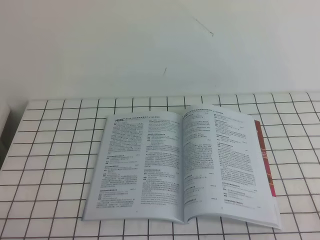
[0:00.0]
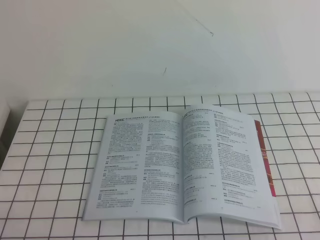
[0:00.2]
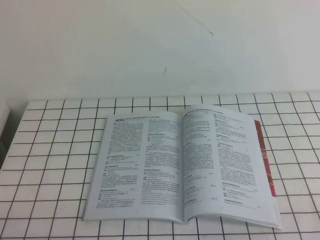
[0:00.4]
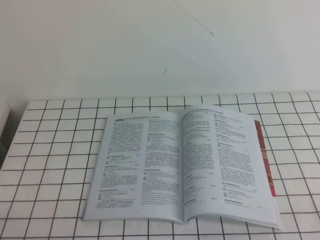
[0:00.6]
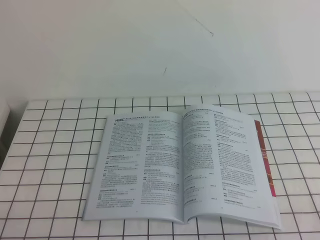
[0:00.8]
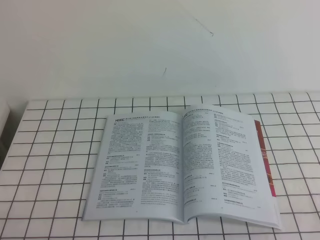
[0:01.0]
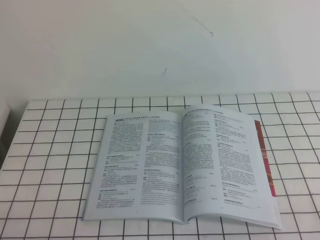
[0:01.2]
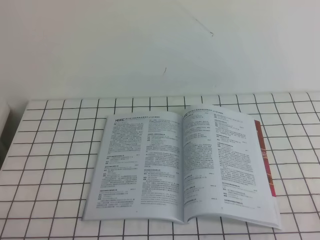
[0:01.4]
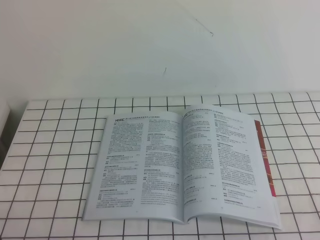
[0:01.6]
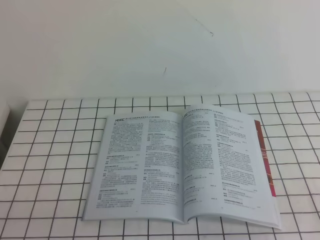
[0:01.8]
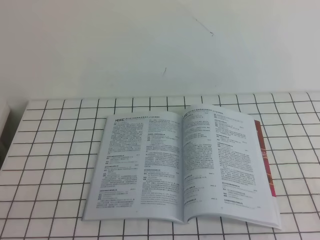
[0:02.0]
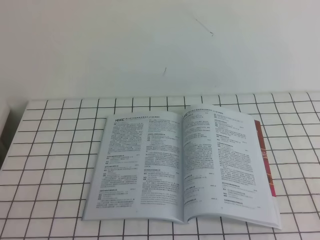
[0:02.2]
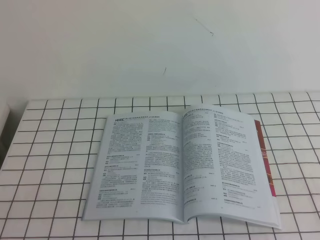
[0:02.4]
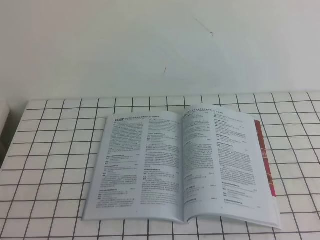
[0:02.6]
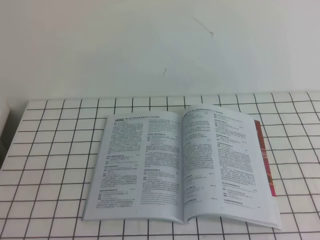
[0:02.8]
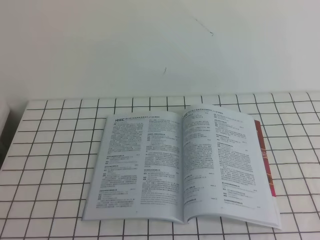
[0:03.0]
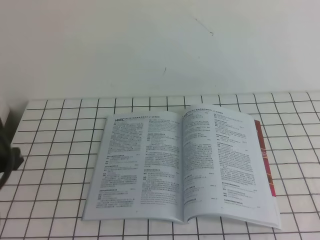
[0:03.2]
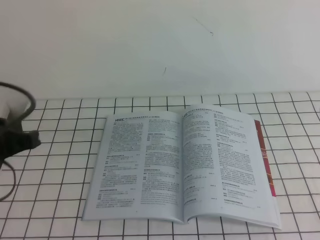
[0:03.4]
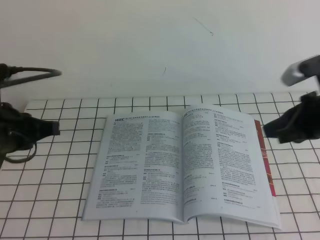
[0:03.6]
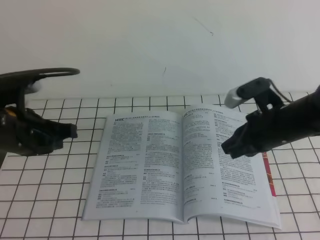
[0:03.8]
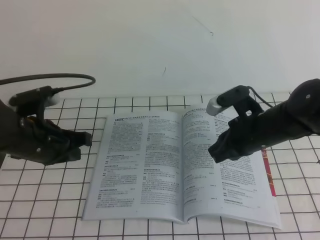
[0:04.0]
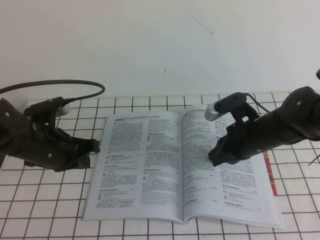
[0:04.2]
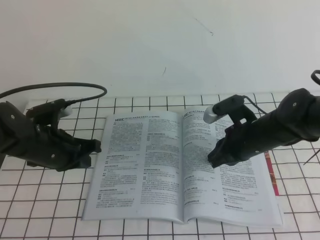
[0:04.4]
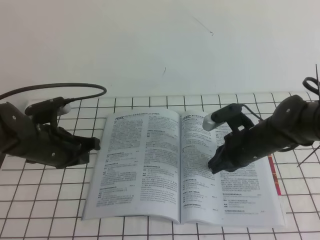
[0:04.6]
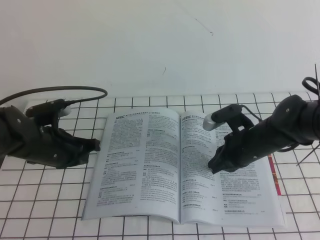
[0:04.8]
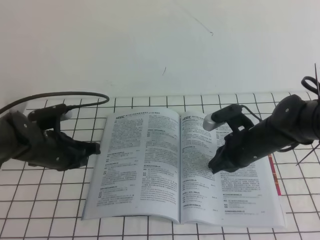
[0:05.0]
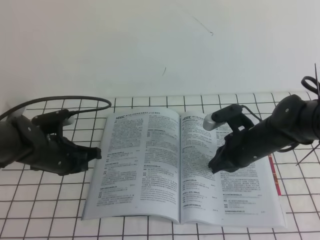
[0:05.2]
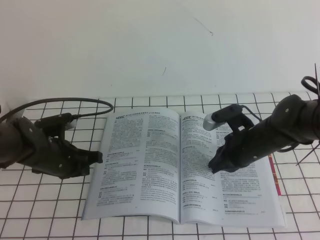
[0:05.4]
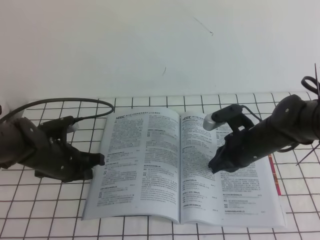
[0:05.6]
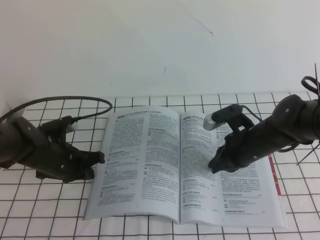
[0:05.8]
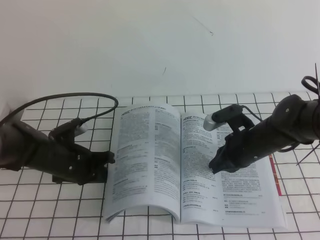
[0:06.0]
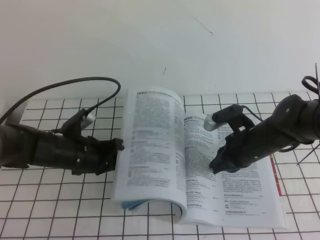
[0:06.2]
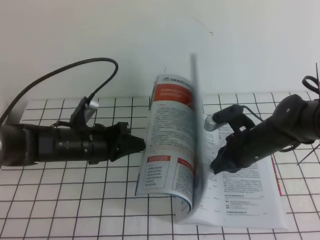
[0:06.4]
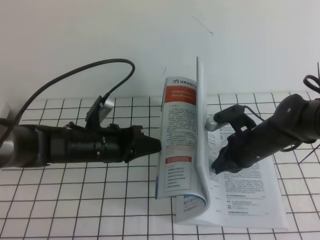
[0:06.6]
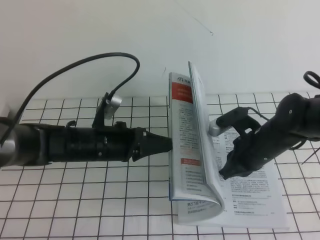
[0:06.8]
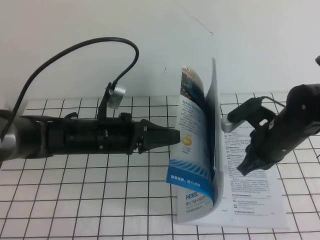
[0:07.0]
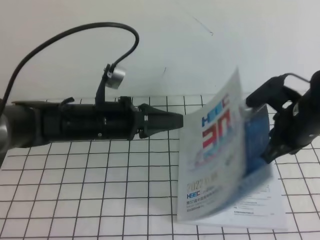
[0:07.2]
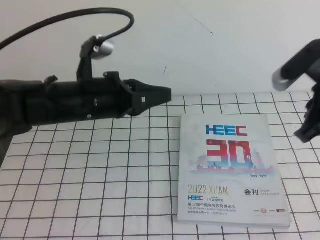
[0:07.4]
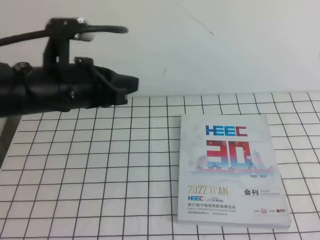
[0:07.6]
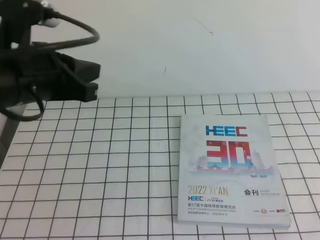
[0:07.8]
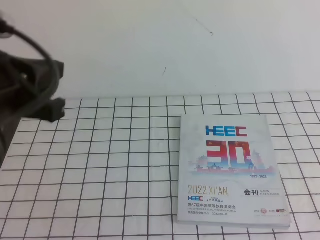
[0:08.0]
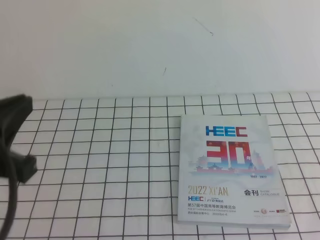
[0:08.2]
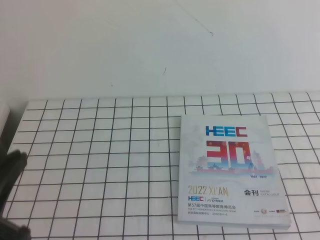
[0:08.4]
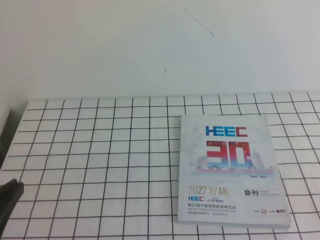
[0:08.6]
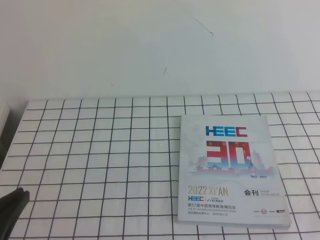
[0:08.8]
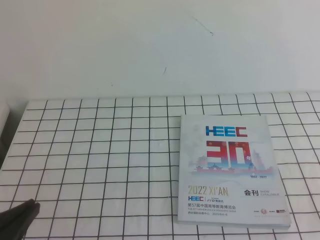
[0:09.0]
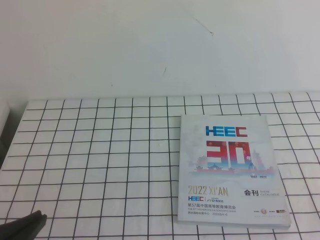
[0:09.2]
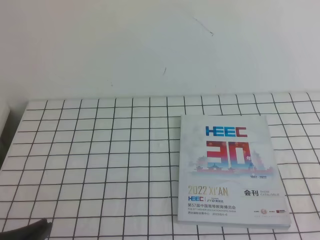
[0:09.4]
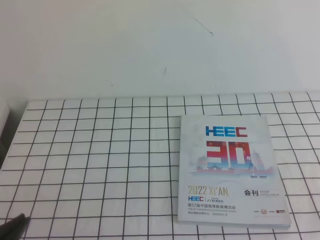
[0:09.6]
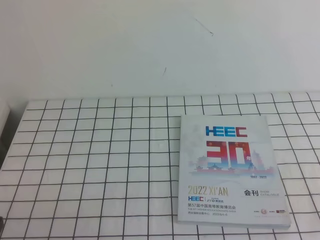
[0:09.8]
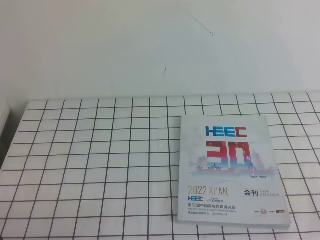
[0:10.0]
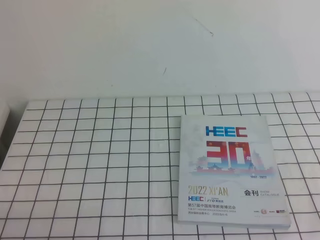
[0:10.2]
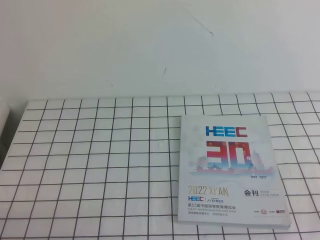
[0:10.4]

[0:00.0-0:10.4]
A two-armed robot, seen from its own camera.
Task of the whole recording: on the white tablecloth, hold the book with one hand and close it with the other.
0:00.0 to 0:01.4: Neither gripper changes place.
0:03.0 to 0:04.4: The left gripper heads forward and downward, covering approximately 25 cm; the right gripper moves forward, downward and to the left, about 40 cm.
0:04.4 to 0:06.0: The left gripper moves downward, about 5 cm.
0:06.0 to 0:07.4: The left gripper goes about 15 cm upward and to the right, while the right gripper goes approximately 15 cm upward.
0:07.4 to 0:09.0: The left gripper heads backward and to the left, covering roughly 25 cm; the right gripper travels backward by about 25 cm.
0:09.0 to 0:10.4: The left gripper travels downward by approximately 10 cm.

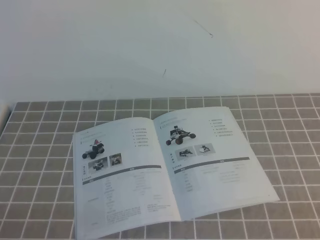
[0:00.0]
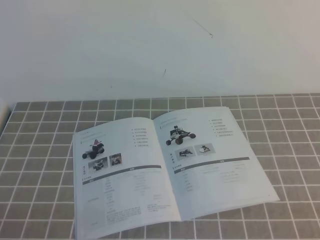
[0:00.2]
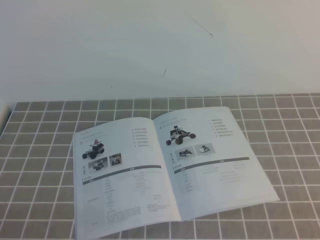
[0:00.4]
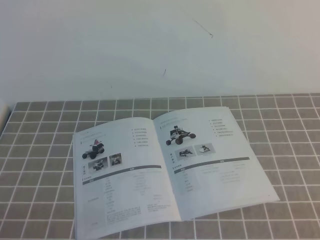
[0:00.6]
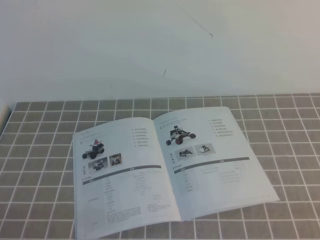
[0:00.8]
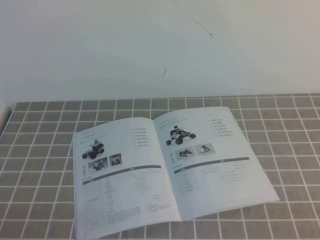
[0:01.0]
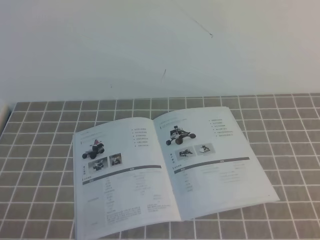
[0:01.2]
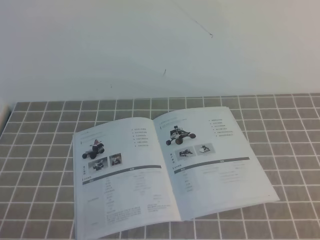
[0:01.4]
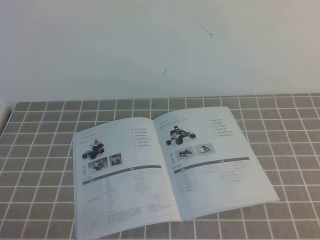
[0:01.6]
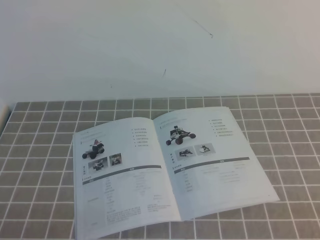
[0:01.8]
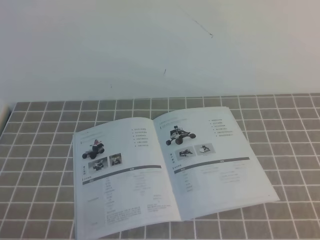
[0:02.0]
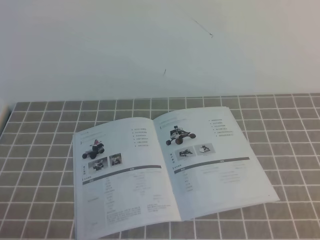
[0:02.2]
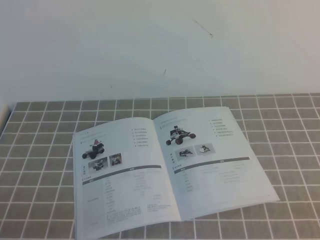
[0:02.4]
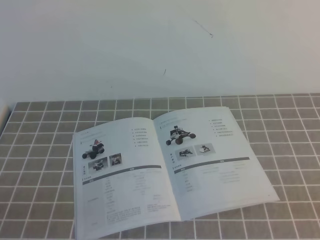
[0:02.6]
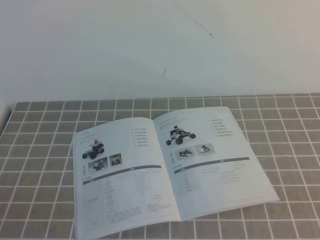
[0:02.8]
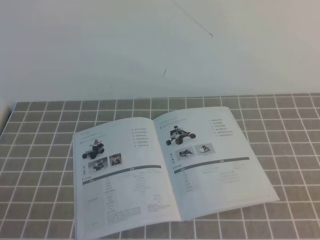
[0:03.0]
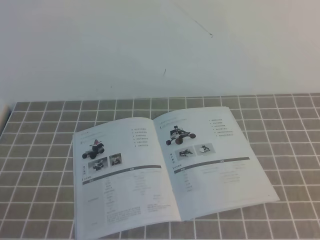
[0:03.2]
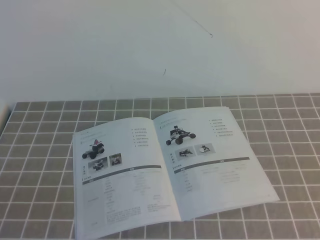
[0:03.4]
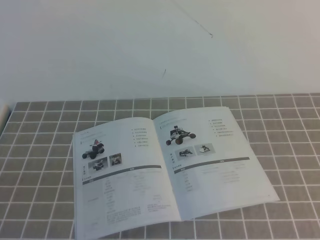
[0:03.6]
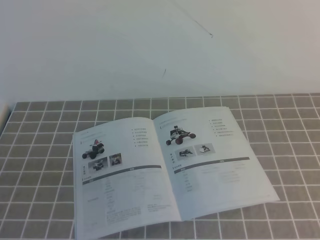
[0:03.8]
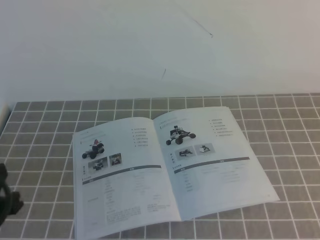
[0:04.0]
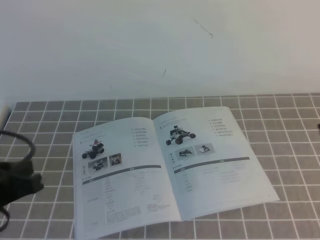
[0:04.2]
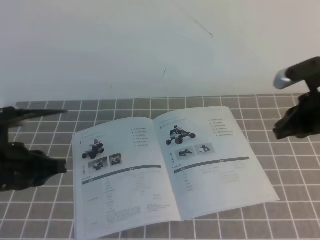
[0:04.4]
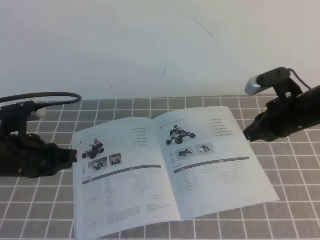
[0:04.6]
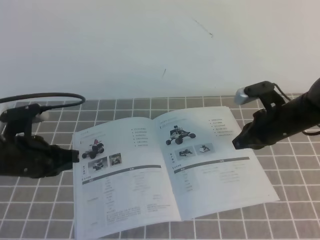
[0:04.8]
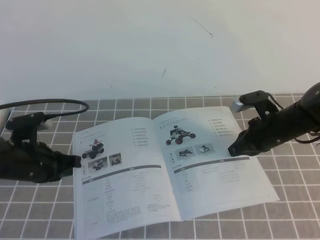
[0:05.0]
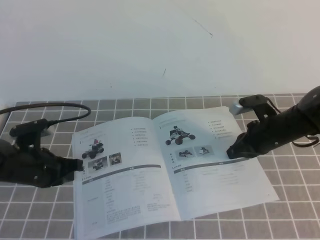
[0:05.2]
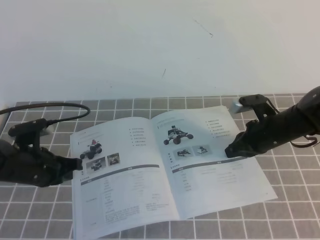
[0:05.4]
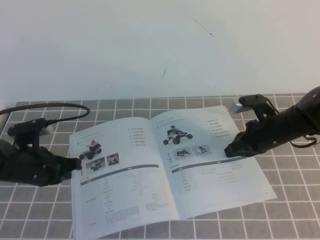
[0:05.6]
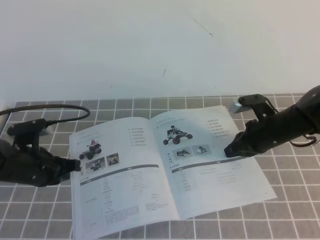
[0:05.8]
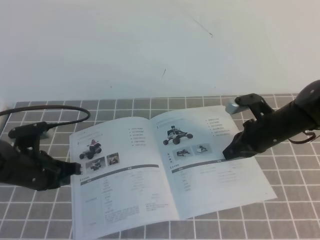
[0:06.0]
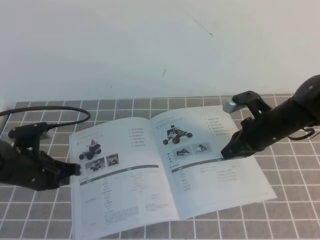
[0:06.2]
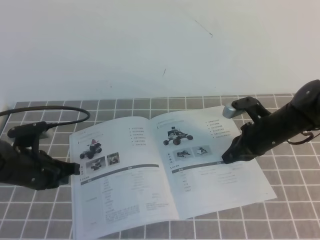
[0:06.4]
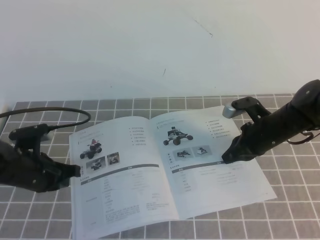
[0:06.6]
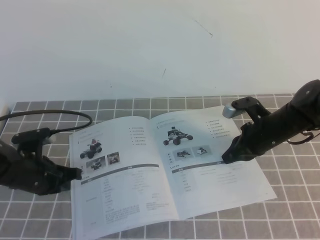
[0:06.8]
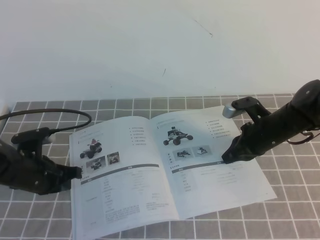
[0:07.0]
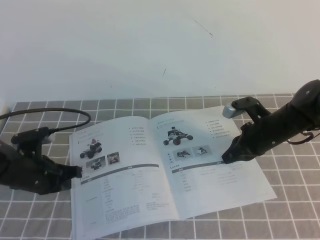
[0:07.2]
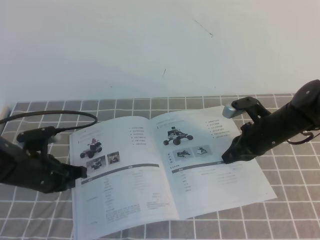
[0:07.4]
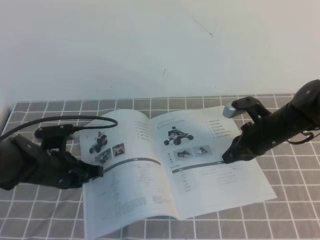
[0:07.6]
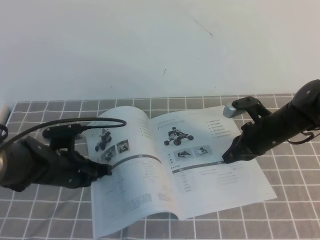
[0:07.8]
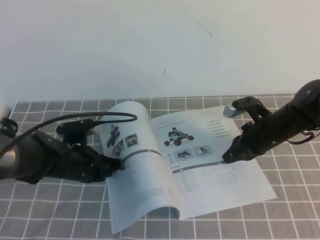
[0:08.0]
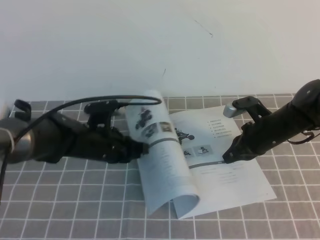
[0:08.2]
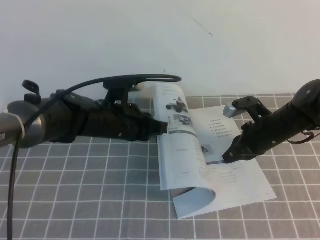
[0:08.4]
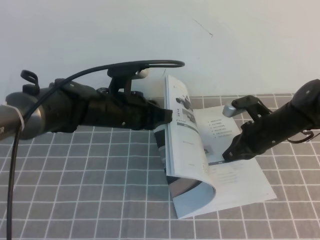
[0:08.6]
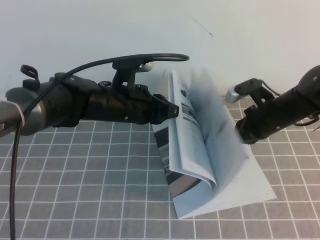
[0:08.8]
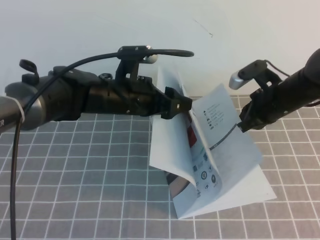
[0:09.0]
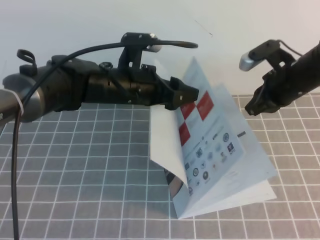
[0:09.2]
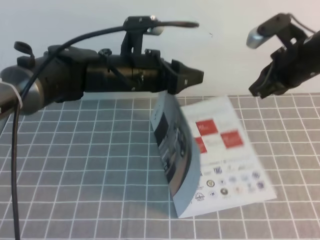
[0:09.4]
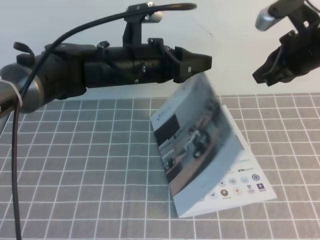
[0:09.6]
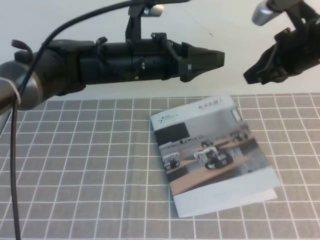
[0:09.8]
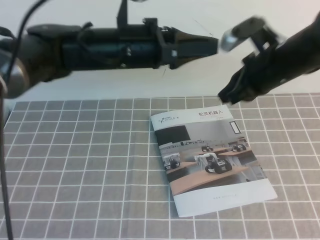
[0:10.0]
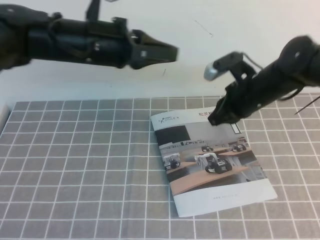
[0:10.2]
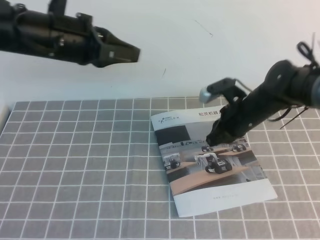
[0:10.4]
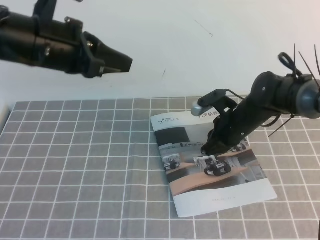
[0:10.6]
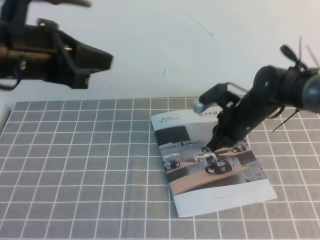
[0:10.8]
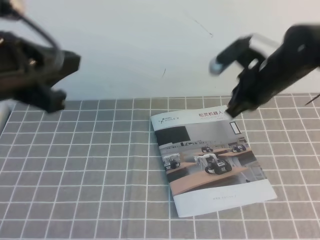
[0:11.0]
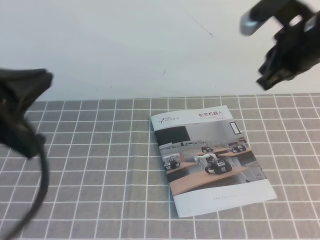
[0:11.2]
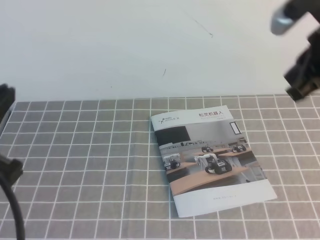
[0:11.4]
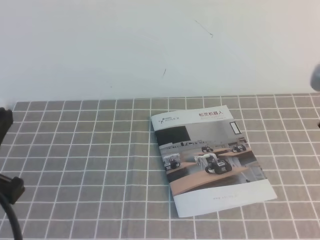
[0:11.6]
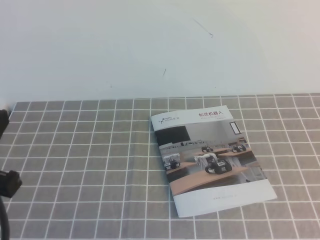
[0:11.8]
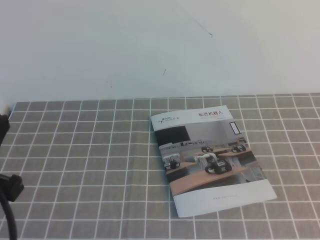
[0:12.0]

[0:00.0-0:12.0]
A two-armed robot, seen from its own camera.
Task of the whole recording: on the grey tablecloth, hold the book with one hand and close it with the other.
0:03.0 to 0:04.4: The right gripper moves forward, roughly 30 cm, while the left gripper is displaced forward by roughly 20 cm.
0:04.4 to 0:06.0: The right gripper travels downward, forward and to the left by some 15 cm. Meanwhile the left gripper moves downward and forward, some 15 cm.
0:06.0 to 0:07.6: The left gripper shifts by about 5 cm.
0:07.6 to 0:09.0: The right gripper moves upward, some 5 cm. Meanwhile the left gripper goes approximately 20 cm to the right and upward, and opens up.
0:09.0 to 0:10.4: The right gripper is displaced to the left by roughly 5 cm, and travels upward and back again, roughly 15 cm each way, while the left gripper goes approximately 15 cm upward and to the left, and closes.
0:10.4 to 0:12.0: The right gripper travels backward, upward and to the right by approximately 40 cm, while the left gripper is displaced backward and to the left by roughly 25 cm.
